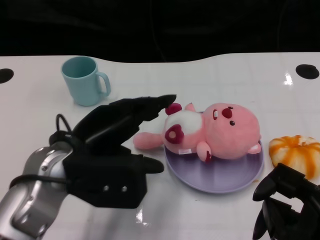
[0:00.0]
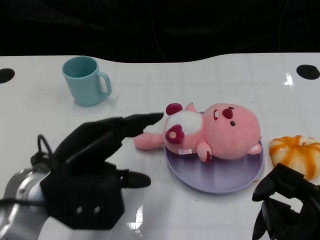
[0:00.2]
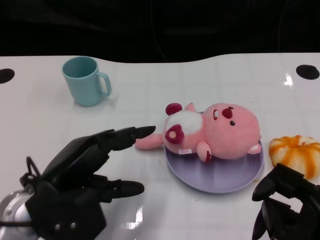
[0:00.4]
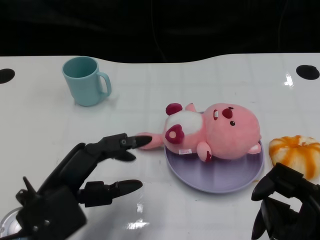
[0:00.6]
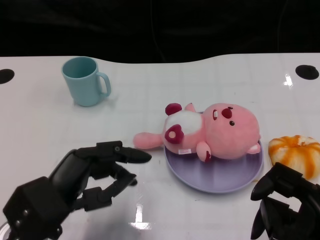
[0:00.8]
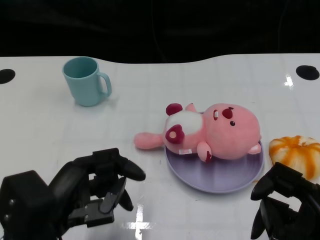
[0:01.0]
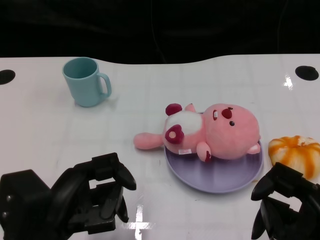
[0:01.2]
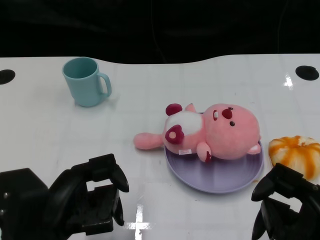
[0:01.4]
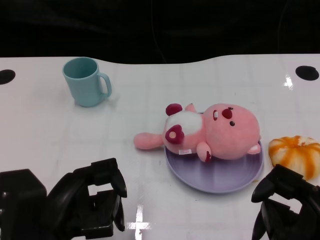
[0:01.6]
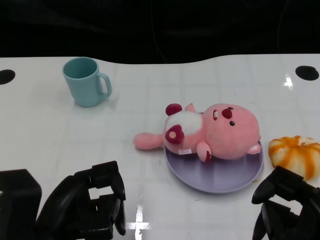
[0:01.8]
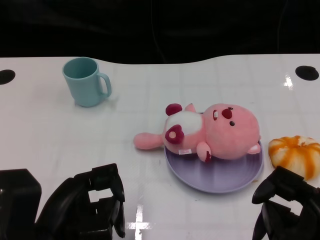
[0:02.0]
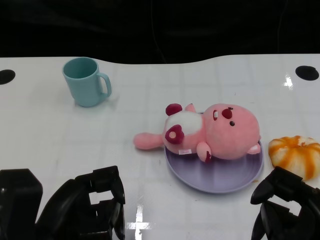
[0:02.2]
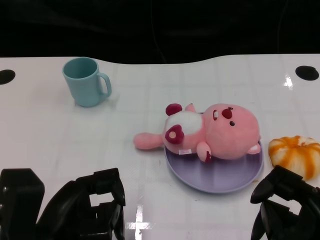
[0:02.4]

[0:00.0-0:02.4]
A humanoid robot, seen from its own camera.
Task of the whole recording: Pick up the doll on one side of the plate and place it into the plate.
0:00.0 to 0:01.2: The left hand goes some 10 cm backward and downward.
0:01.2 to 0:02.4: There are only small adjustments of the hands.
